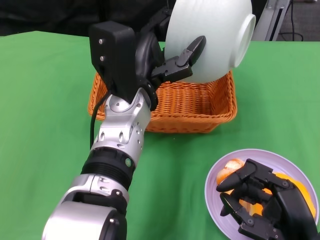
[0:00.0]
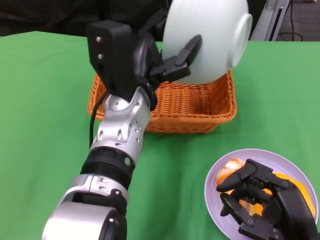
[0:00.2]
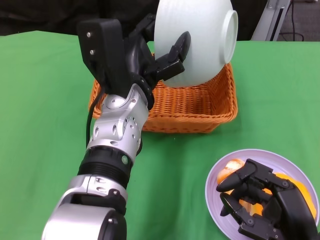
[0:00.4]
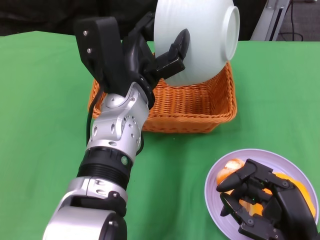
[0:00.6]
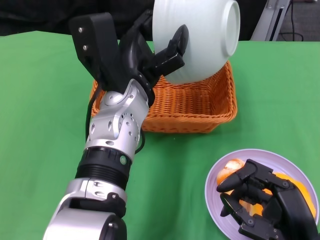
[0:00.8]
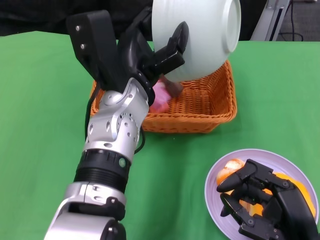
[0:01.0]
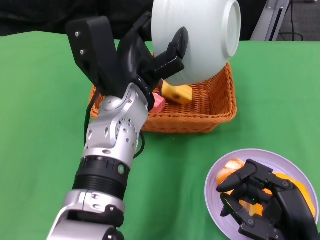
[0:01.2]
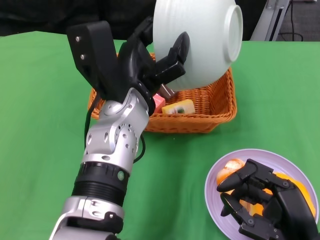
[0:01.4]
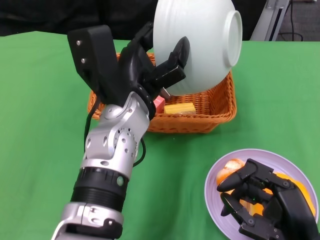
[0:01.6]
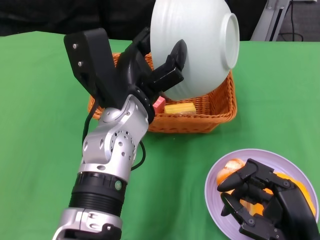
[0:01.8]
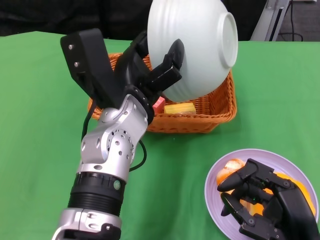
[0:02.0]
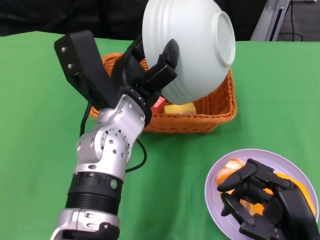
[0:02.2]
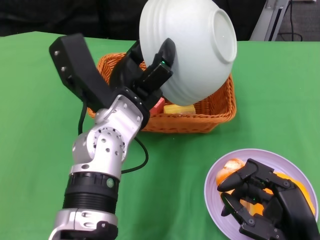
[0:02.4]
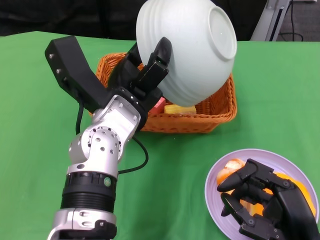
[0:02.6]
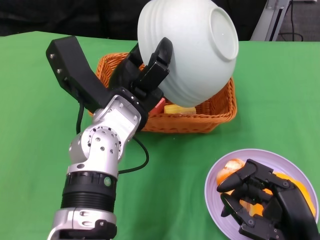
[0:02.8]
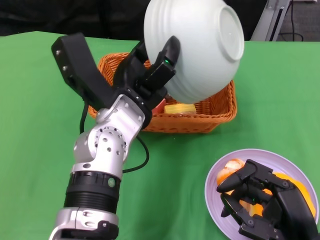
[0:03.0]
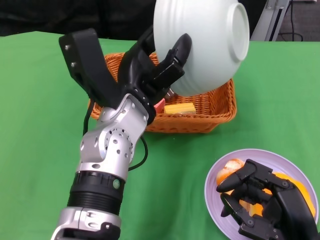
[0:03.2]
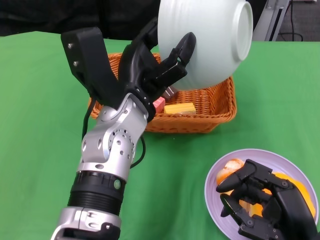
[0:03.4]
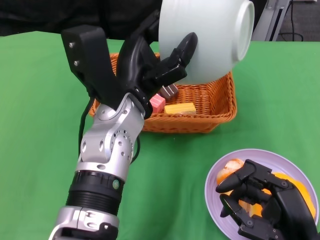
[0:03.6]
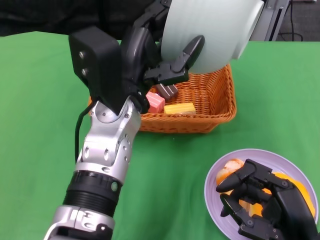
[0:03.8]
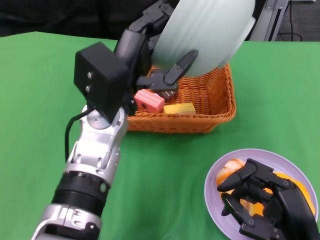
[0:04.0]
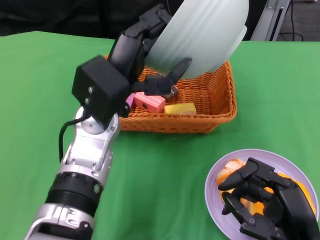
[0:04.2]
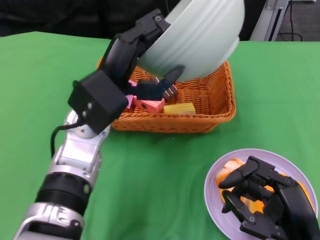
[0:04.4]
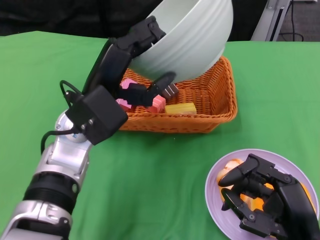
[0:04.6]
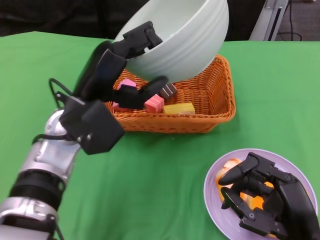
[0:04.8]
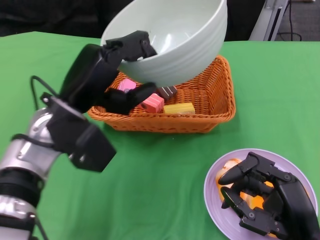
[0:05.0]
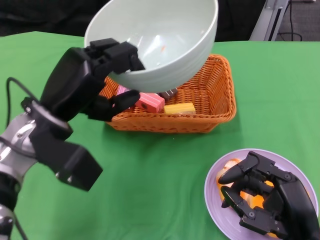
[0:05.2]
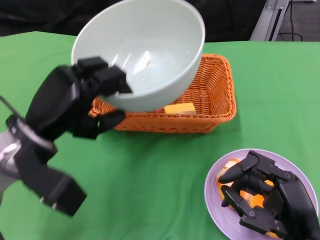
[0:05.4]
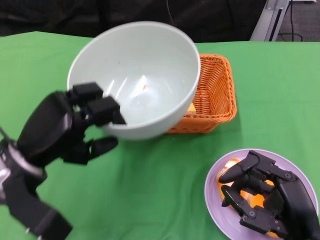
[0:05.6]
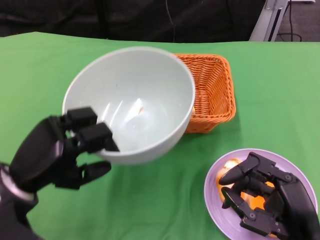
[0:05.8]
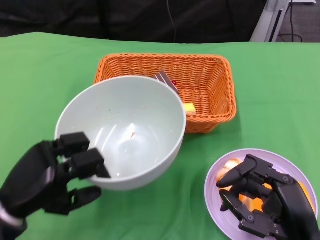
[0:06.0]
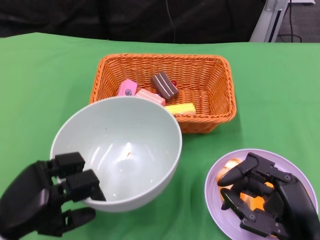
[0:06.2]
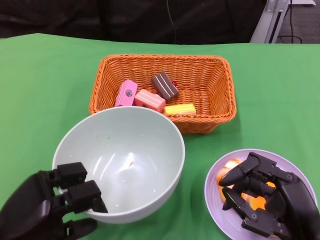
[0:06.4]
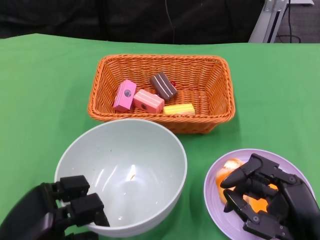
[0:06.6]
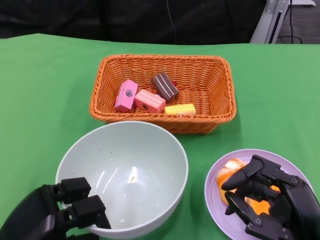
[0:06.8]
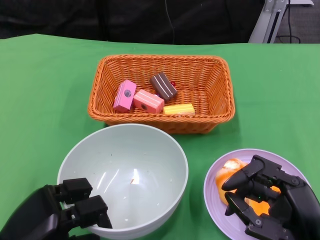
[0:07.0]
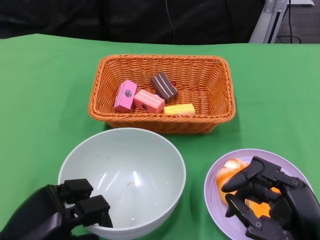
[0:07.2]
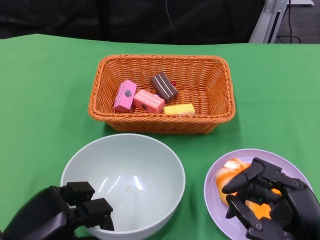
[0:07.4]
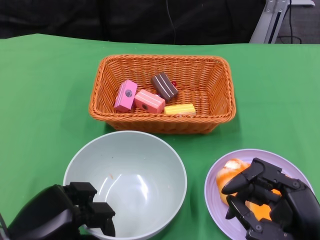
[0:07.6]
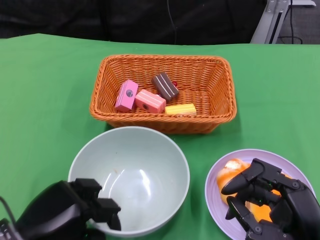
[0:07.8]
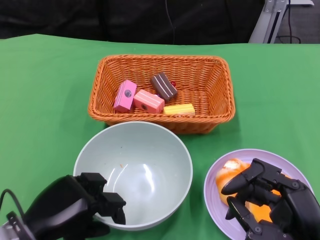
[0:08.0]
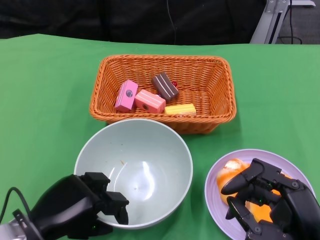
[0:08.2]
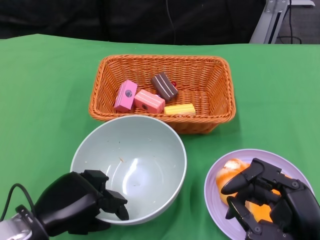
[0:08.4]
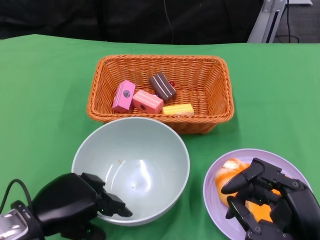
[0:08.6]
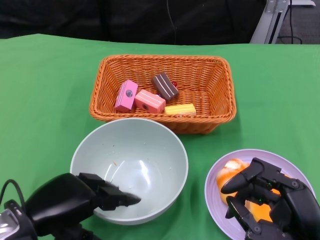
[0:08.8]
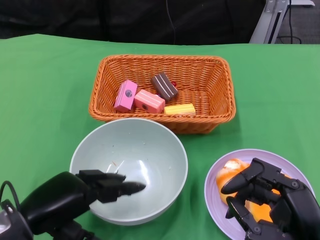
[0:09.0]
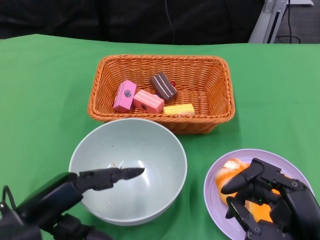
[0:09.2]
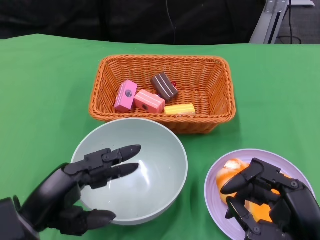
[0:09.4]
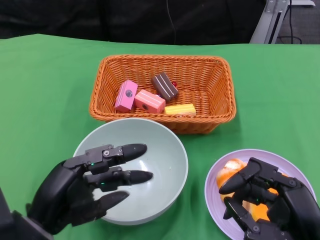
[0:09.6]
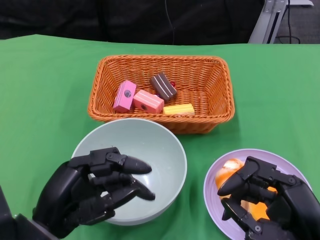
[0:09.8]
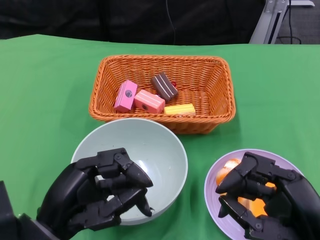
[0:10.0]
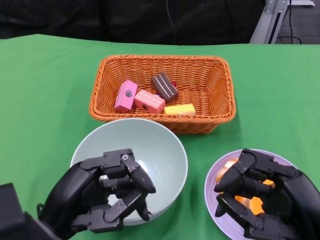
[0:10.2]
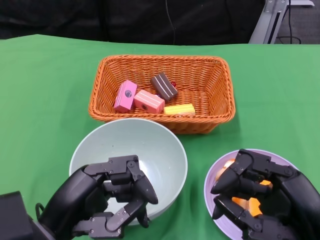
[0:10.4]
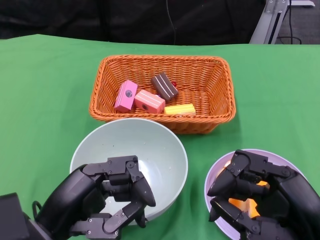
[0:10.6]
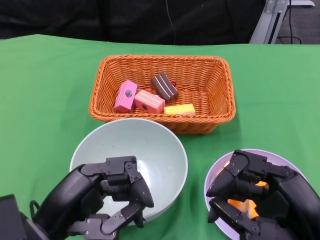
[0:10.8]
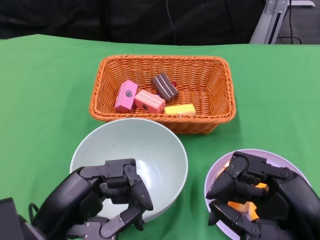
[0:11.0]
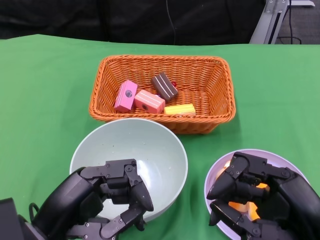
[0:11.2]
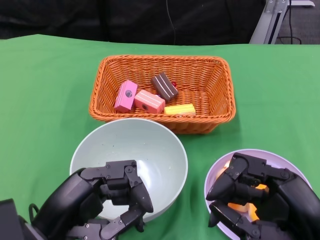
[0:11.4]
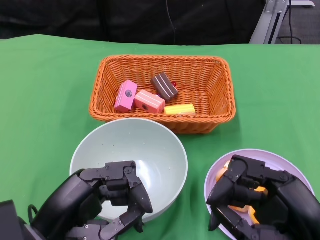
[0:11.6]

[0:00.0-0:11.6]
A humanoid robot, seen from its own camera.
Step, 0:00.0 to 0:02.0: Pour the cake into the basket with the left gripper.
Step, 0:02.2 to 0:08.8: Place the bowl on the table with the left gripper.
0:00.0 to 0:01.4: There are only small adjustments of the hands.
0:04.4 to 0:05.8: The left hand goes some 15 cm to the left, downward and backward.
0:05.8 to 0:07.2: The left hand moves backward, roughly 5 cm.
0:08.8 to 0:10.2: The left hand changes place by approximately 5 cm.
0:10.2 to 0:11.6: The hands move only a little.

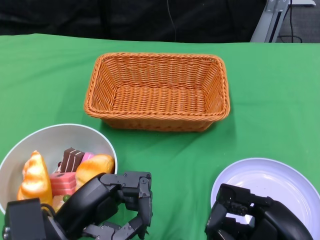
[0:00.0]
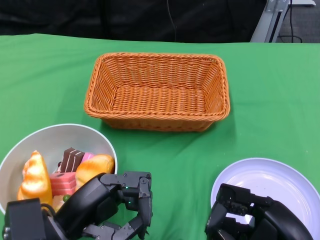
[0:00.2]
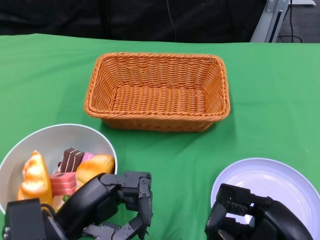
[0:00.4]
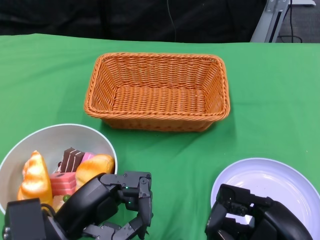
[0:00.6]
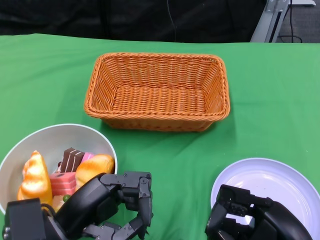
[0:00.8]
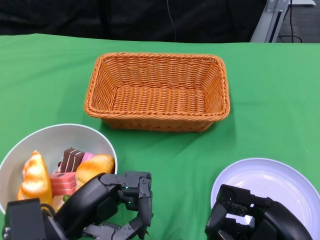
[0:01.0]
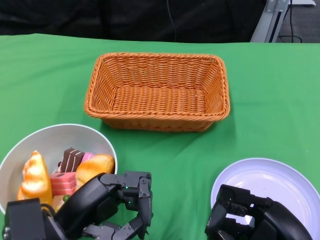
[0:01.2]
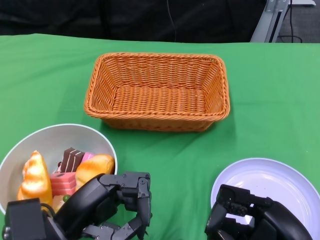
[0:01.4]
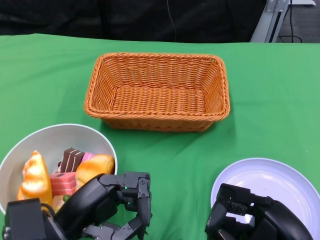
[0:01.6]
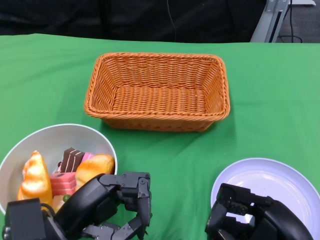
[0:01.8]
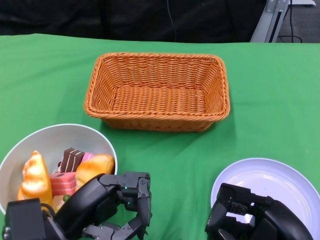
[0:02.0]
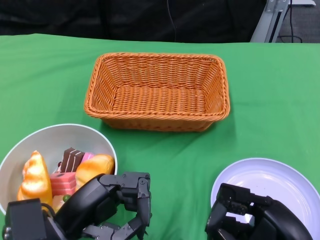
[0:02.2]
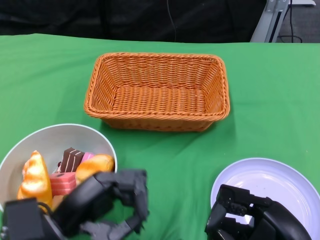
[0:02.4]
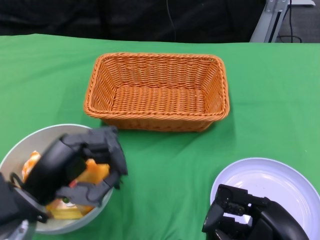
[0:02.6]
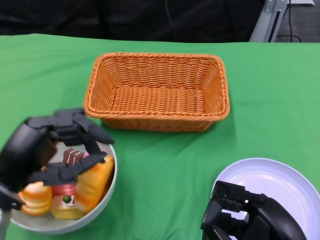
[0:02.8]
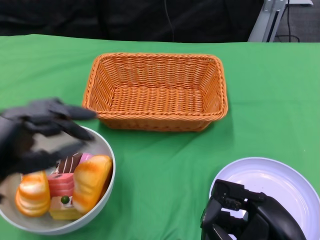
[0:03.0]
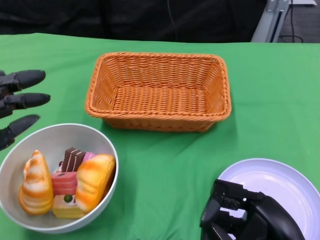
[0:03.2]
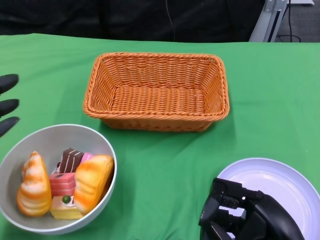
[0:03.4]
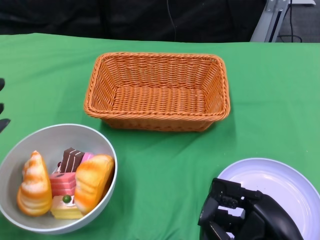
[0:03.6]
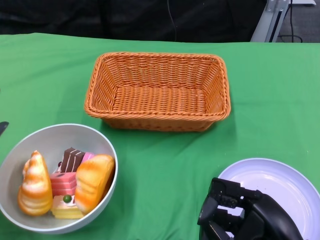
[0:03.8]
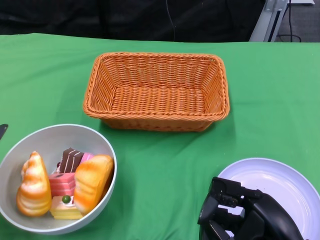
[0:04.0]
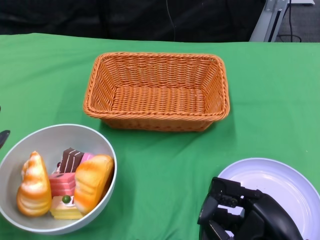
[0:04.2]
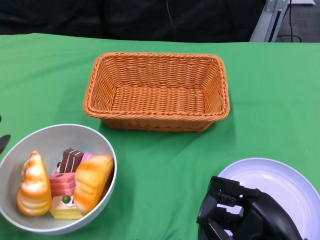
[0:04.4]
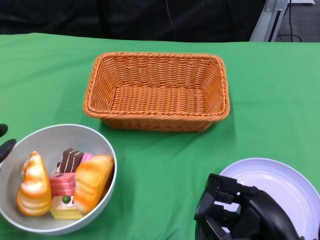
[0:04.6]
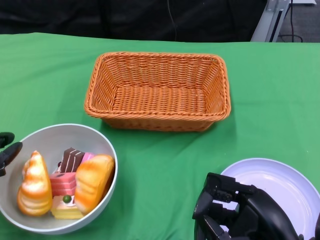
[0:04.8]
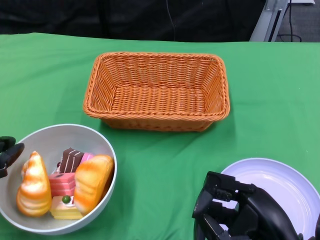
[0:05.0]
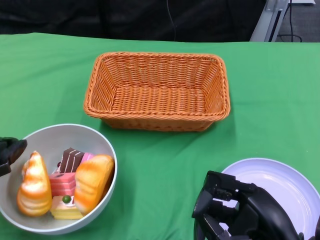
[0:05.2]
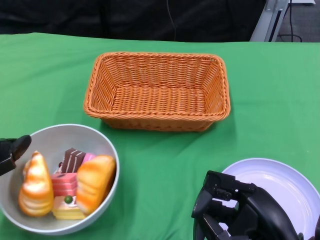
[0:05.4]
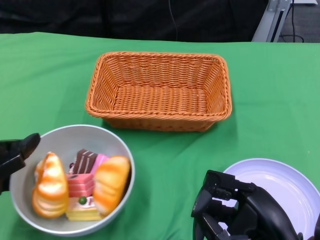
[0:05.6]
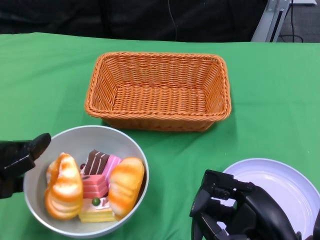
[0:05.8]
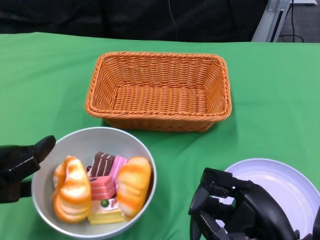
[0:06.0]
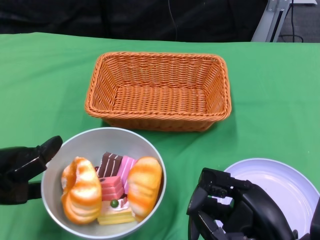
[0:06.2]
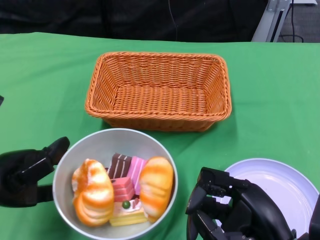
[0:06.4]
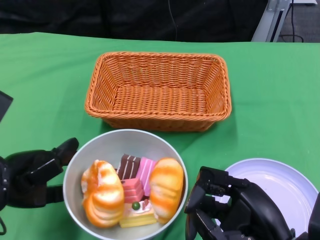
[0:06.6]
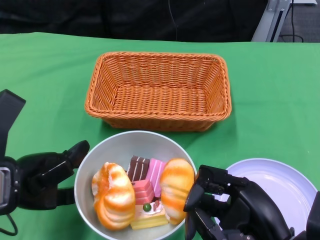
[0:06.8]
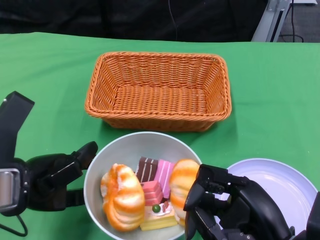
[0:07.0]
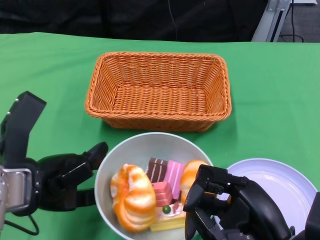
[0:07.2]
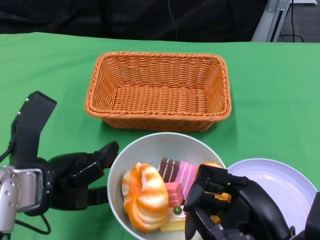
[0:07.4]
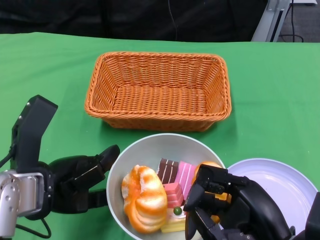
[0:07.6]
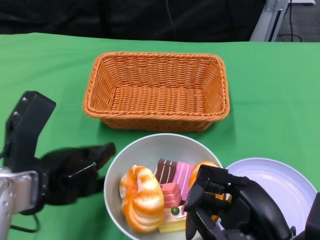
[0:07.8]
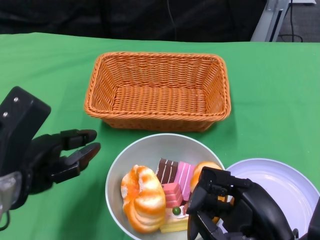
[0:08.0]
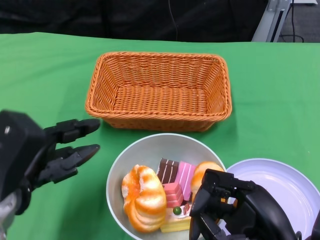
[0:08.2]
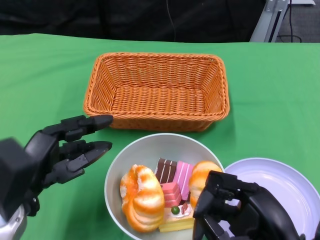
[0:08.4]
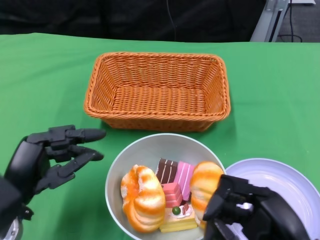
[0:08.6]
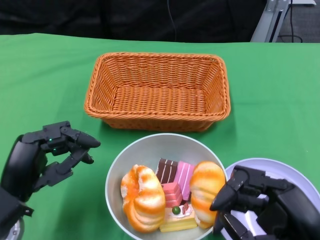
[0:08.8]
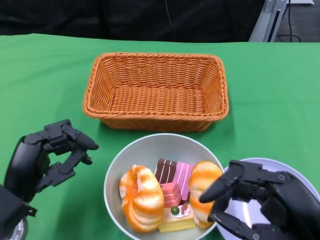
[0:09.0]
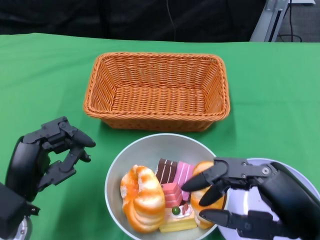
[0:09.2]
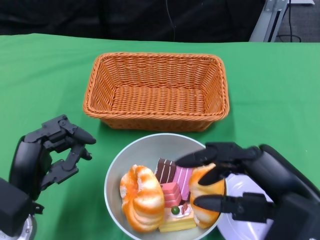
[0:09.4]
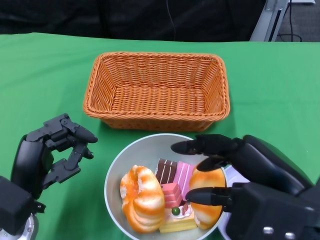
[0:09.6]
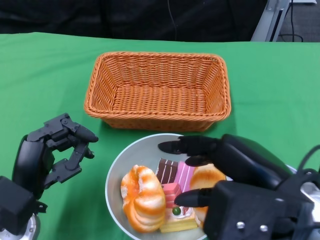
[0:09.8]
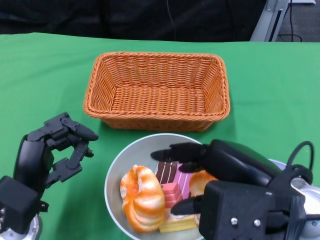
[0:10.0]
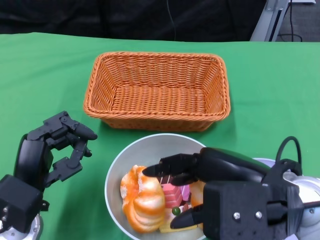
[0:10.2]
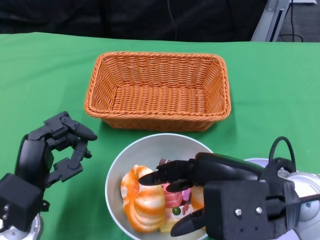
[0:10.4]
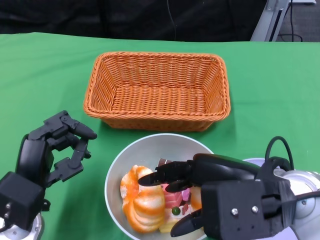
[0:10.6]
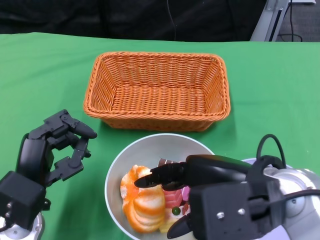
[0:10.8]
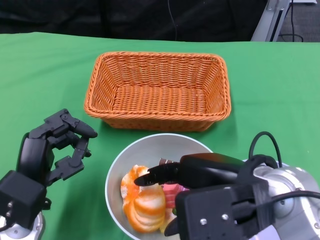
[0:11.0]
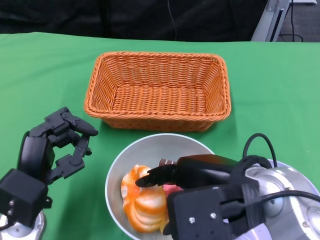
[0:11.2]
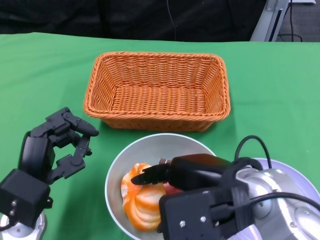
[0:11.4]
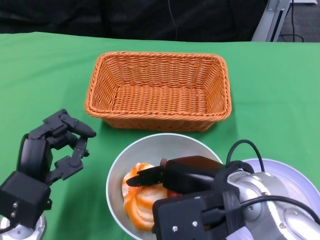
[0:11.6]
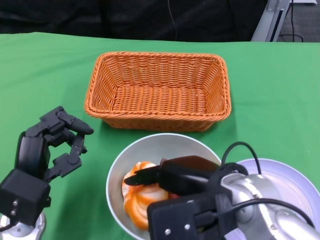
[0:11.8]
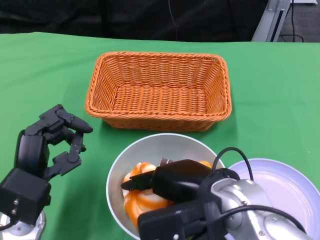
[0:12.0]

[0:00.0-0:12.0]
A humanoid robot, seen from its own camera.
Step, 0:00.0 to 0:07.8: Push the bowl to the center of the table using the left gripper.
0:01.6 to 0:03.0: The left hand shifts about 10 cm to the left and upward.
0:03.0 to 0:04.4: The left hand moves to the left, roughly 5 cm.
0:04.4 to 0:06.0: The left hand moves approximately 5 cm.
0:06.0 to 0:07.6: The left hand heads to the right, covering some 10 cm.
0:07.6 to 0:09.0: The left hand goes approximately 5 cm downward.
0:09.0 to 0:10.4: The right hand goes some 10 cm upward, forward and to the left.
0:10.4 to 0:12.0: The right hand shifts some 5 cm to the left.
